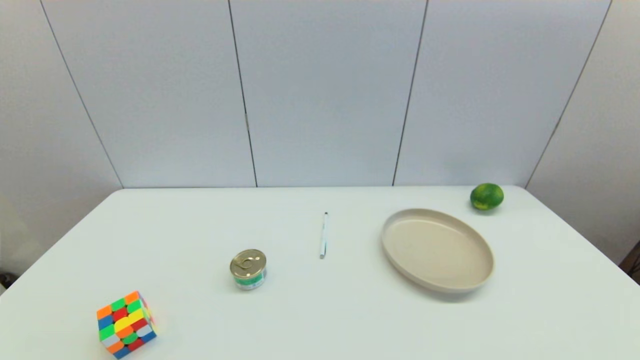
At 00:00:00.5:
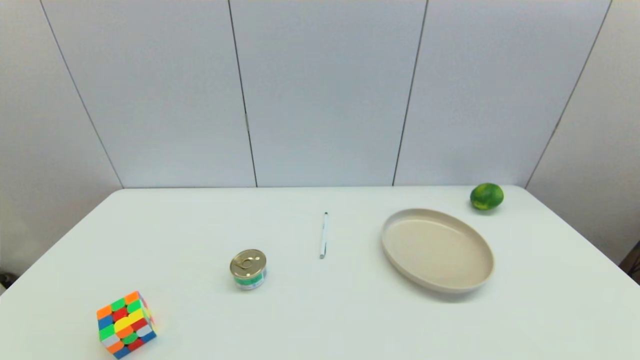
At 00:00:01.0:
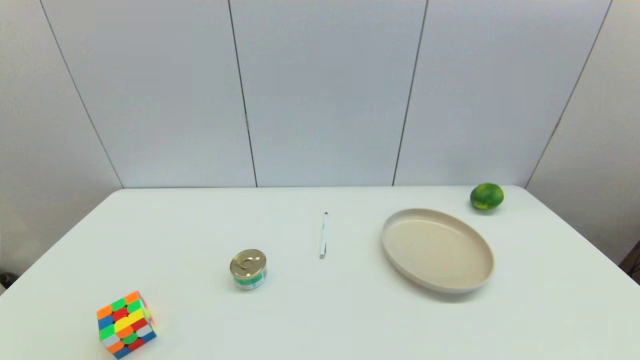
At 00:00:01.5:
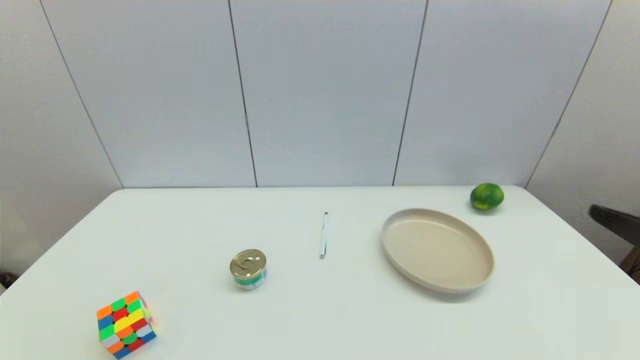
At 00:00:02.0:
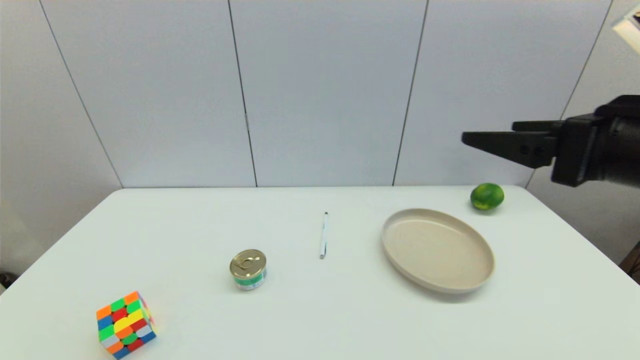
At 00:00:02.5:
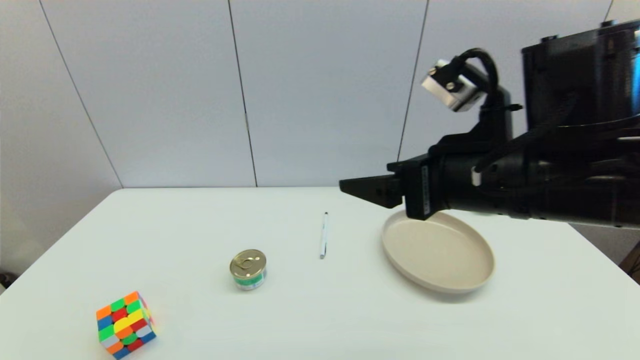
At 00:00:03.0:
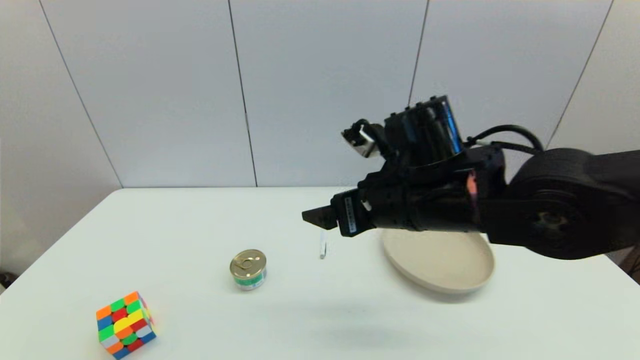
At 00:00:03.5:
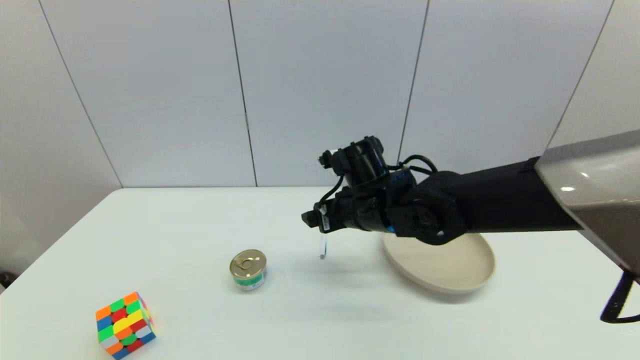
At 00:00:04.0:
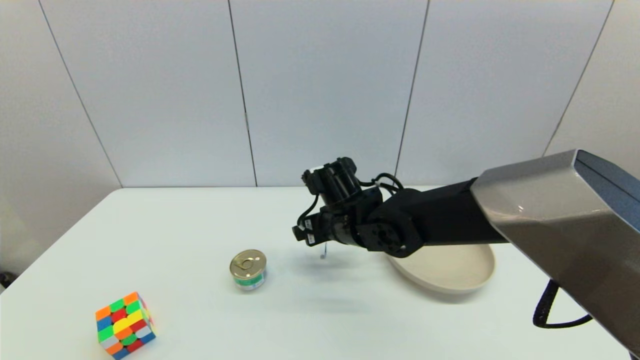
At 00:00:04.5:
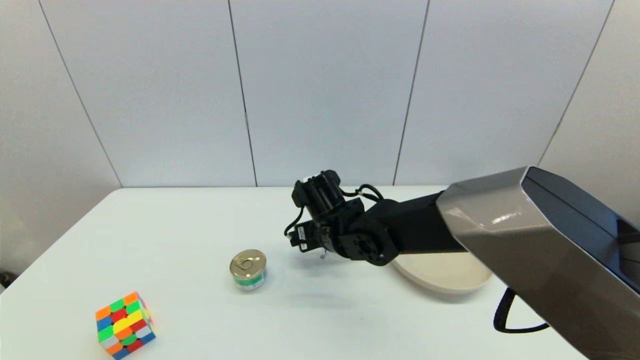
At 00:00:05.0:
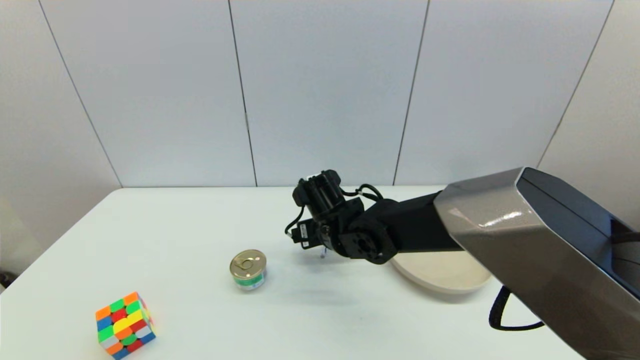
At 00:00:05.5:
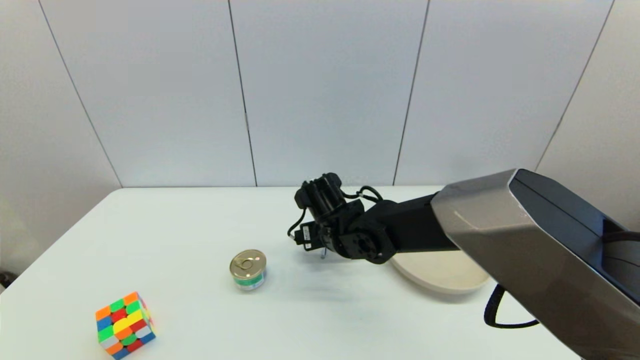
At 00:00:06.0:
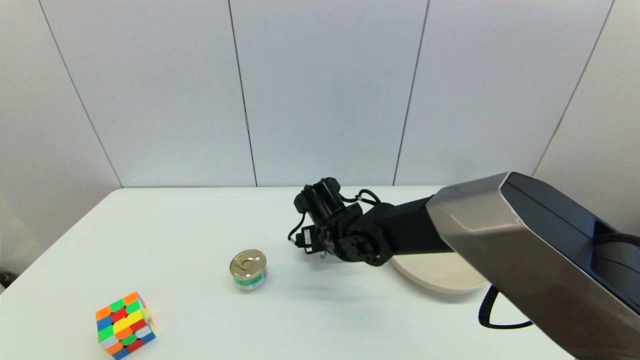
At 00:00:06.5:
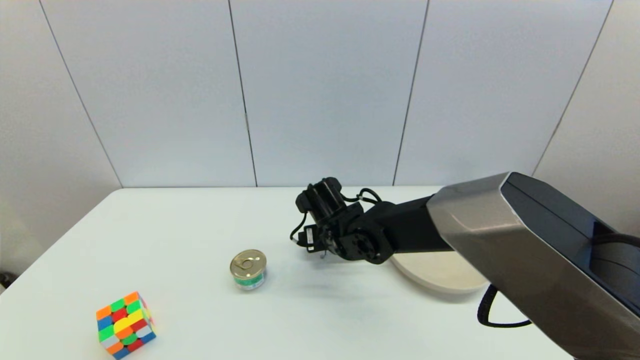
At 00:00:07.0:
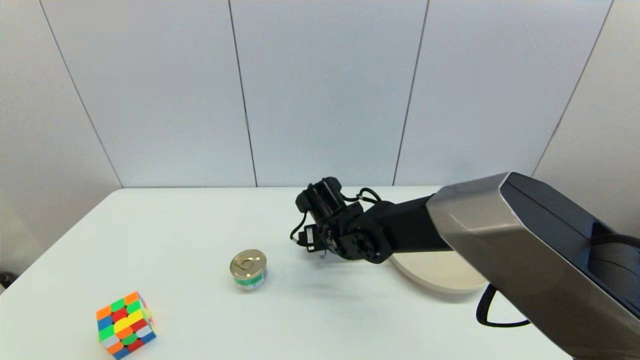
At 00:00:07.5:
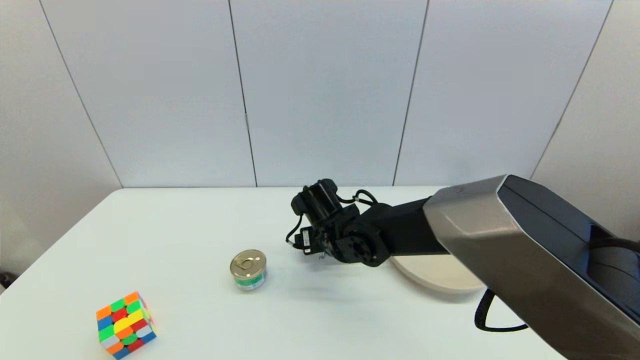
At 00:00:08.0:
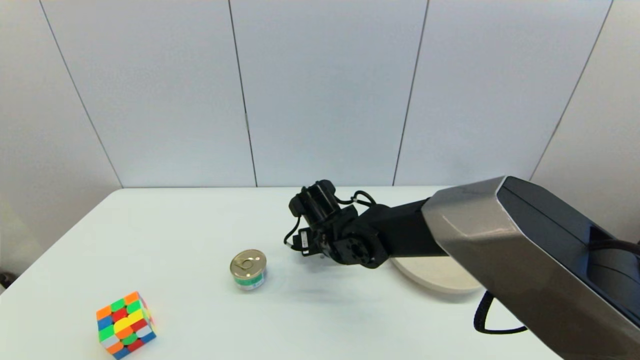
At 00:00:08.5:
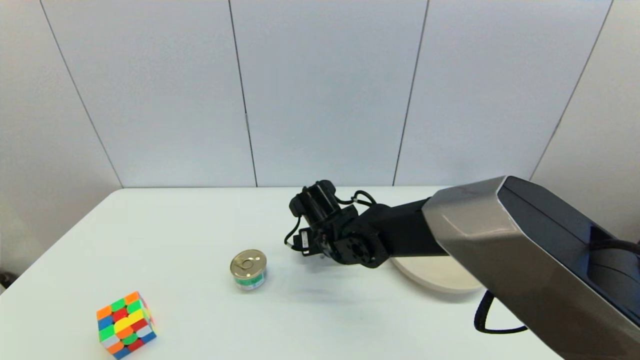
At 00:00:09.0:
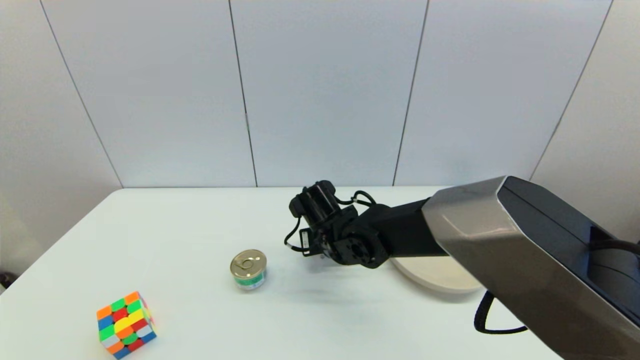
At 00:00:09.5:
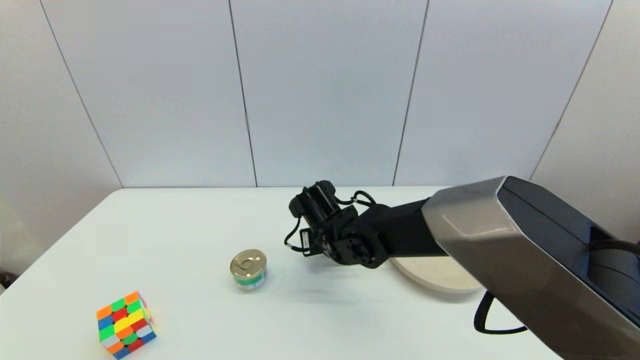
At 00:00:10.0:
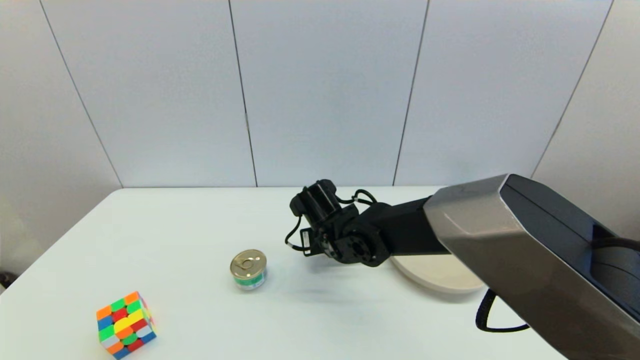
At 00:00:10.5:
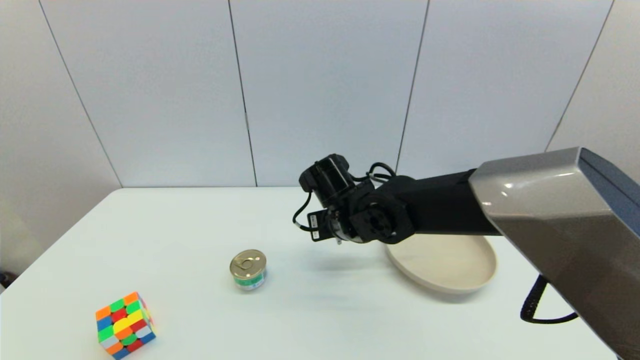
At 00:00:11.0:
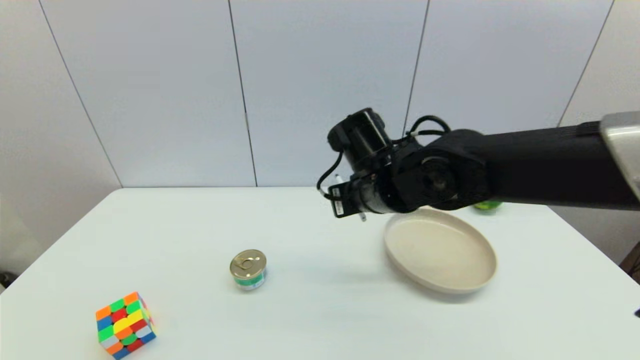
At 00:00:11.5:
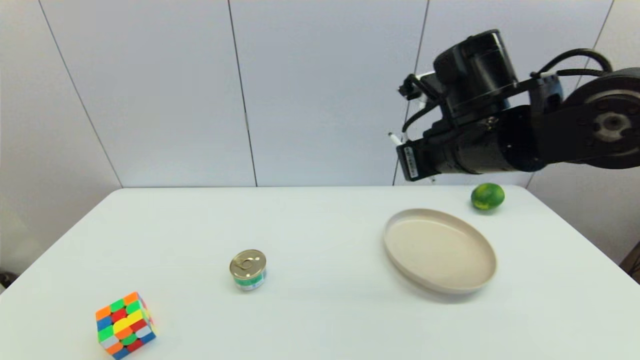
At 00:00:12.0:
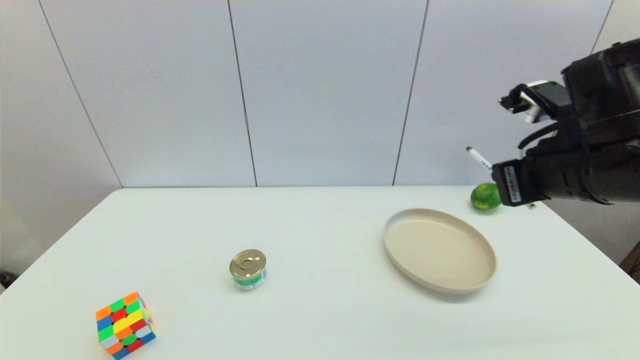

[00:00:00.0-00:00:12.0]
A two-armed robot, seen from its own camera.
Task of the whole recording: put the pen in the designated position.
Step, 00:00:01.5 to 00:00:09.5: Grasp the sign pen with right gripper.
00:00:00.0 to 00:00:02.0: The right gripper travels upward, forward and to the left by approximately 30 cm.
00:00:02.0 to 00:00:04.0: The right gripper goes some 30 cm to the left, downward and forward.
00:00:04.0 to 00:00:08.0: The grippers stay close to where they were, moving slightly.
00:00:08.0 to 00:00:10.0: The right gripper closes.
00:00:10.0 to 00:00:12.0: The right gripper travels to the right, upward and backward by about 30 cm.

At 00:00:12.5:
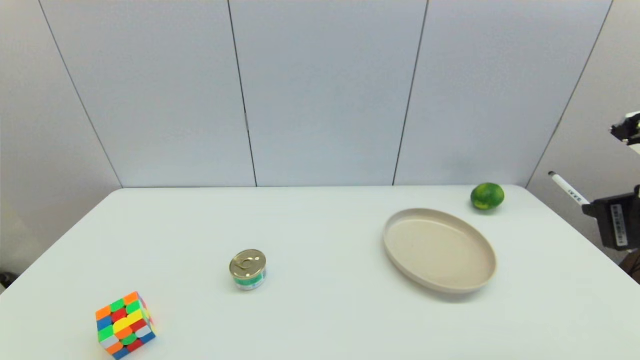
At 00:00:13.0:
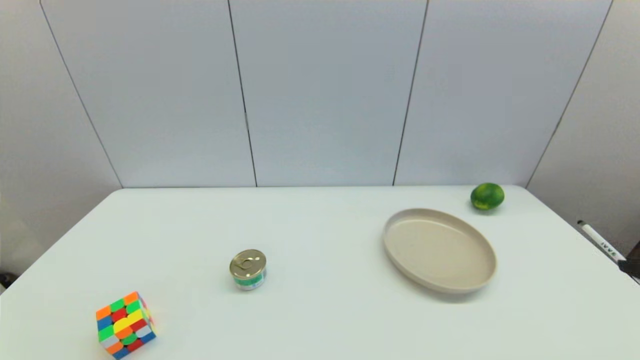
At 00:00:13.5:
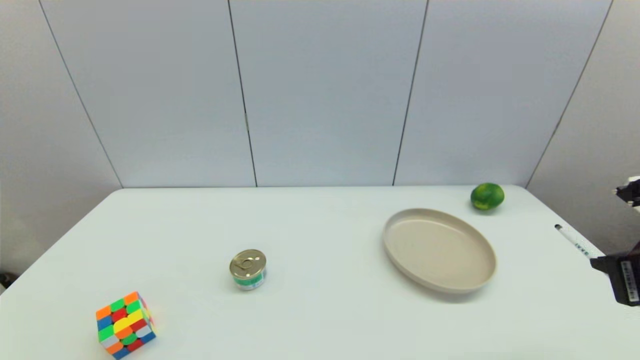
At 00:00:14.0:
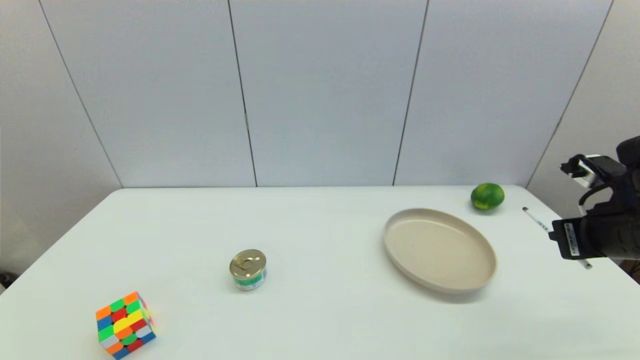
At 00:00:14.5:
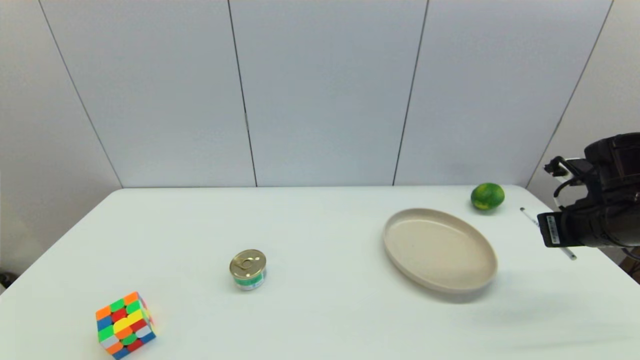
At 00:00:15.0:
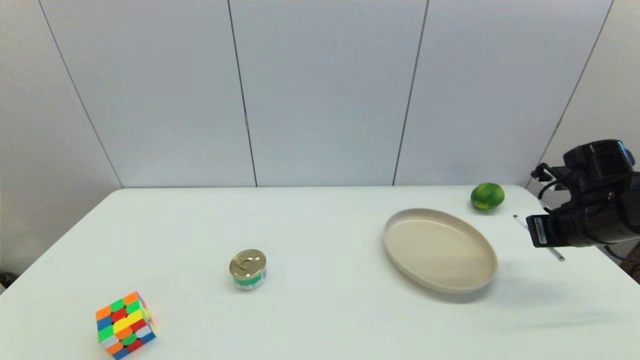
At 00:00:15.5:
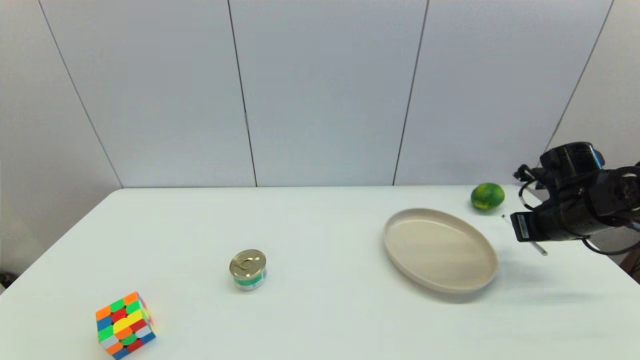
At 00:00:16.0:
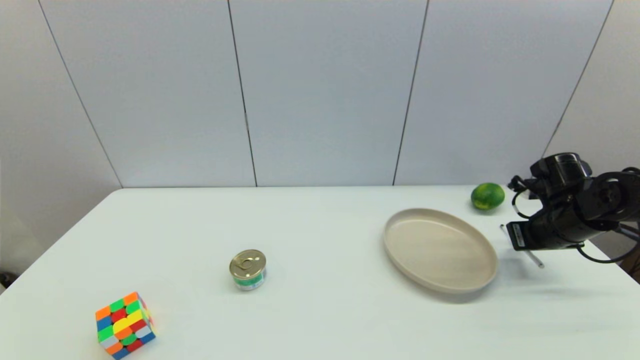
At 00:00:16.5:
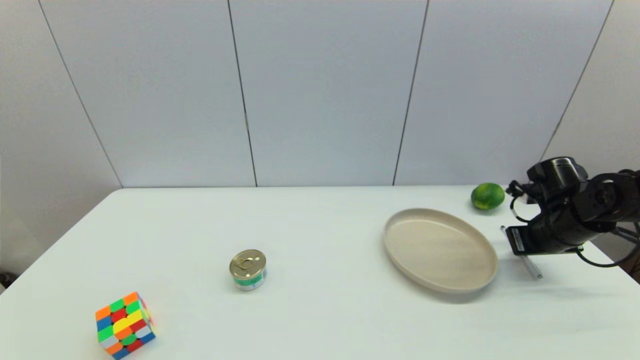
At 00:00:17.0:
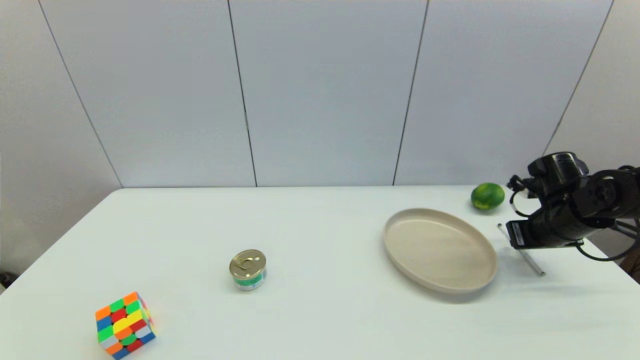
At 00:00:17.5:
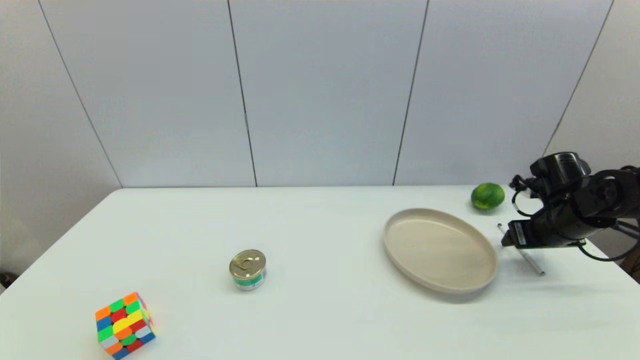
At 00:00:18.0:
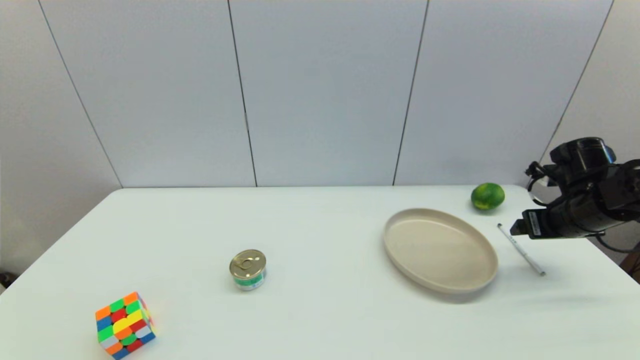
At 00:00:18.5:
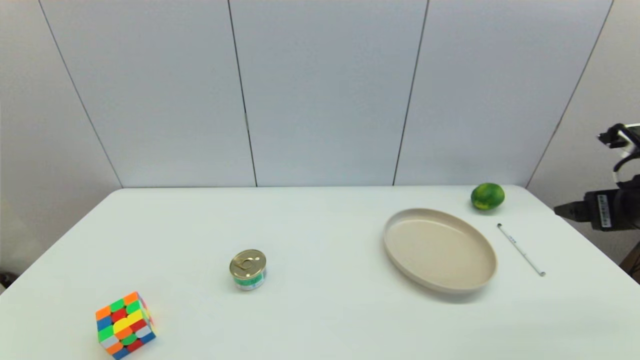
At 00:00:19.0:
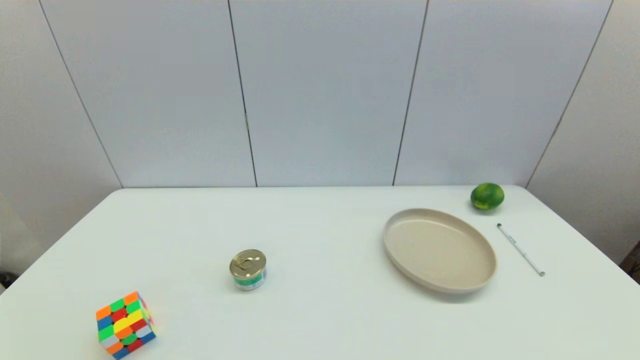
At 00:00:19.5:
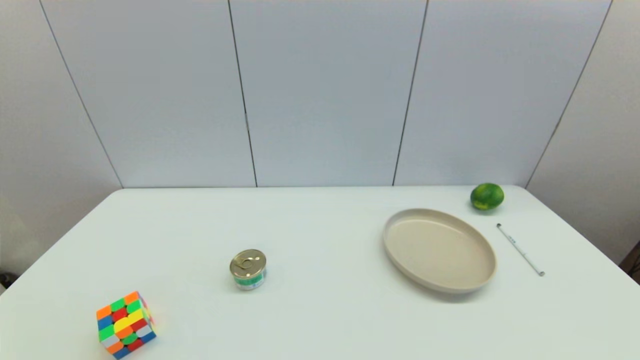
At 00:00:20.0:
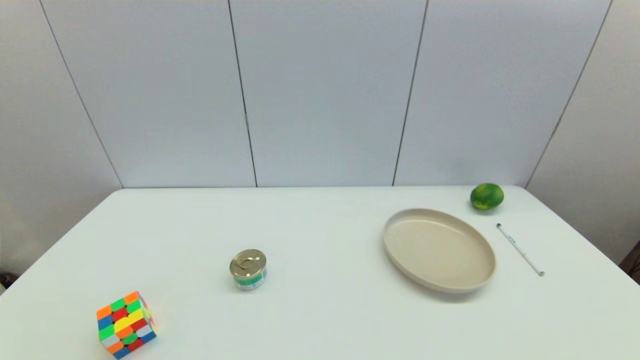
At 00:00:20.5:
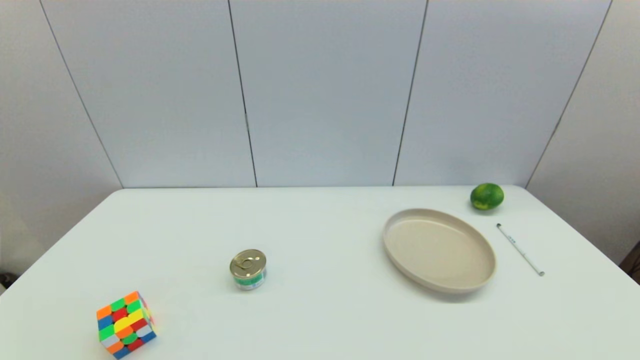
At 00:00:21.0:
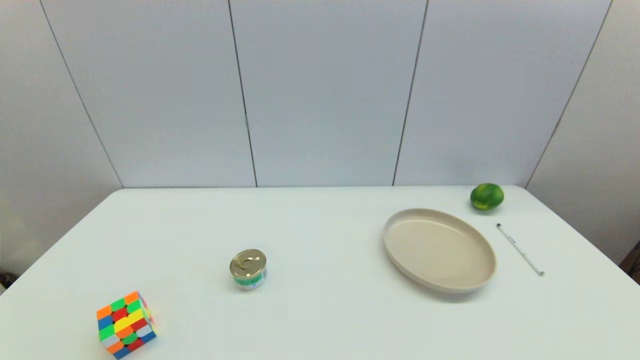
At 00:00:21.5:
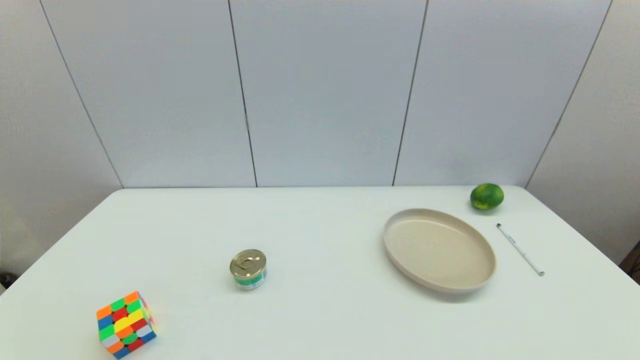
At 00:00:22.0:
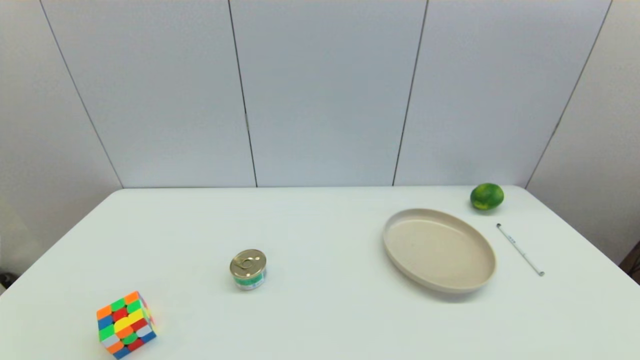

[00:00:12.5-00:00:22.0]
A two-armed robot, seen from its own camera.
Task of the whole recording: put the pen in the designated position.
Step, 00:00:12.5 to 00:00:17.0: Place the sign pen on the table with right gripper.
00:00:12.5 to 00:00:14.5: The right gripper shifts about 15 cm forward and downward.
00:00:14.5 to 00:00:16.5: The right gripper shifts approximately 10 cm forward and downward.
00:00:16.5 to 00:00:18.0: The right gripper opens.
00:00:18.0 to 00:00:20.0: The right gripper goes some 35 cm backward.
